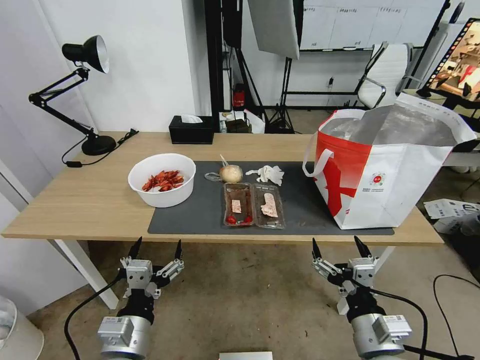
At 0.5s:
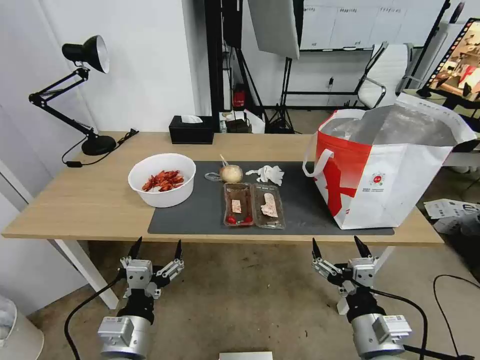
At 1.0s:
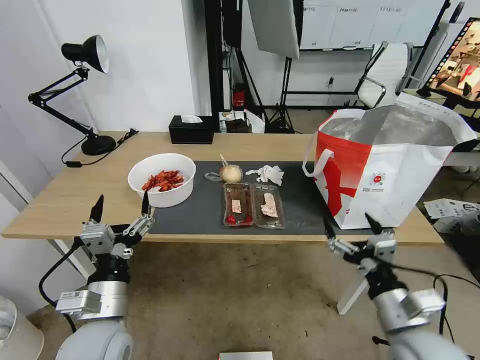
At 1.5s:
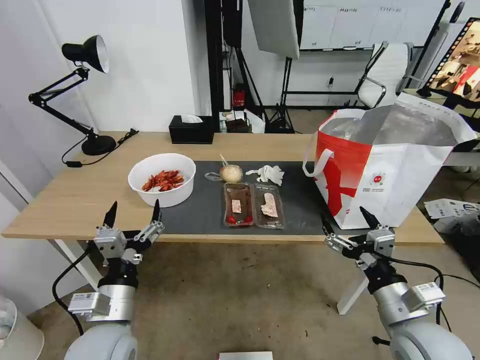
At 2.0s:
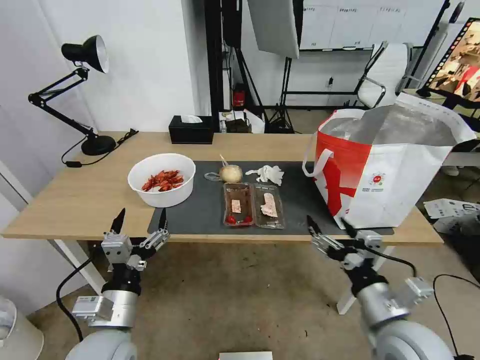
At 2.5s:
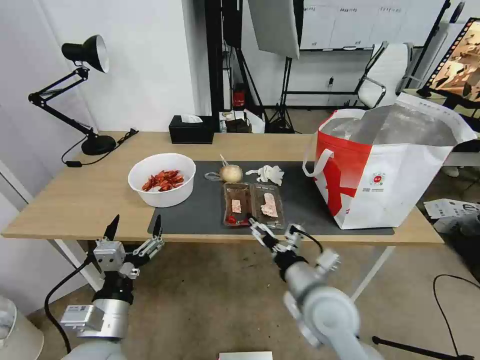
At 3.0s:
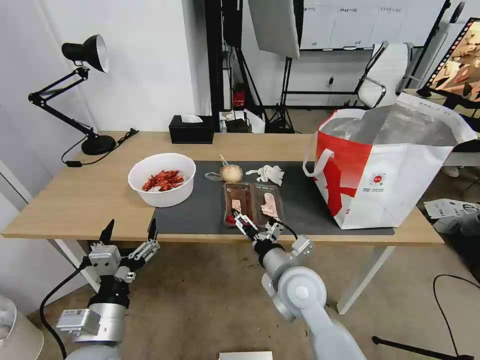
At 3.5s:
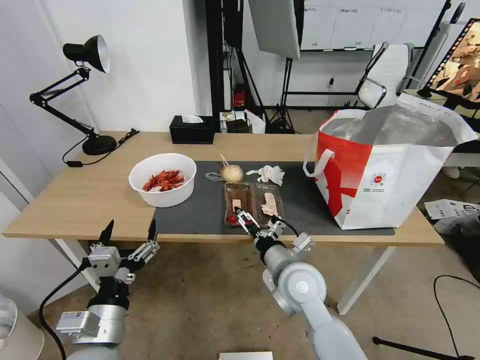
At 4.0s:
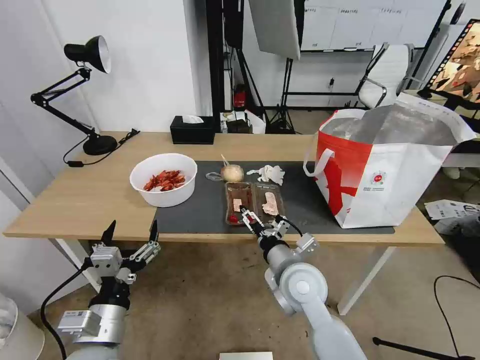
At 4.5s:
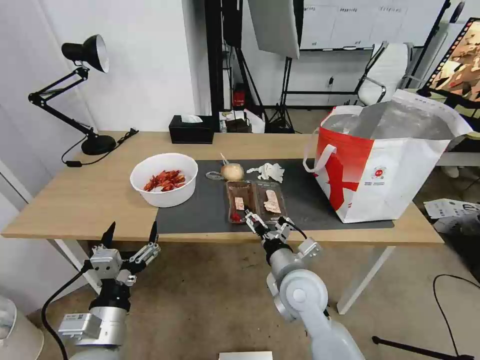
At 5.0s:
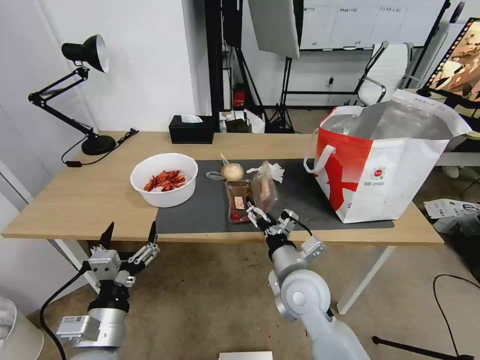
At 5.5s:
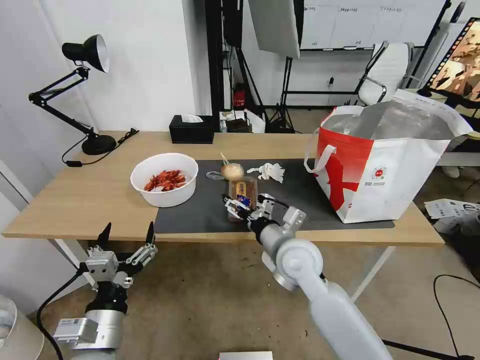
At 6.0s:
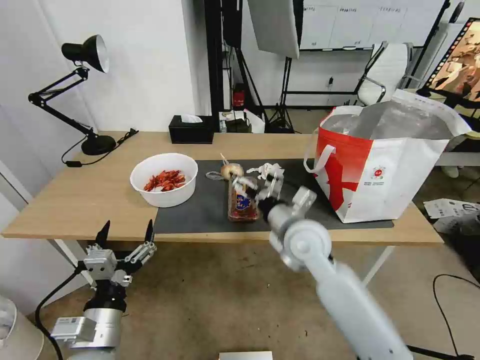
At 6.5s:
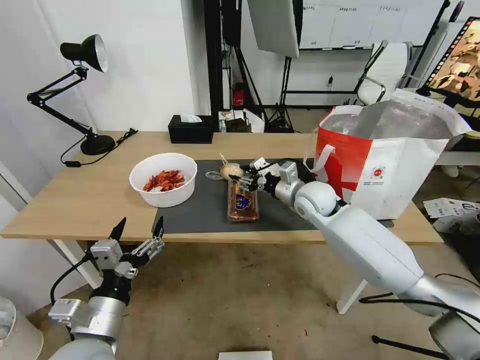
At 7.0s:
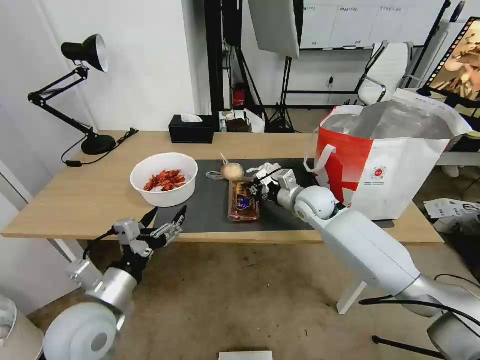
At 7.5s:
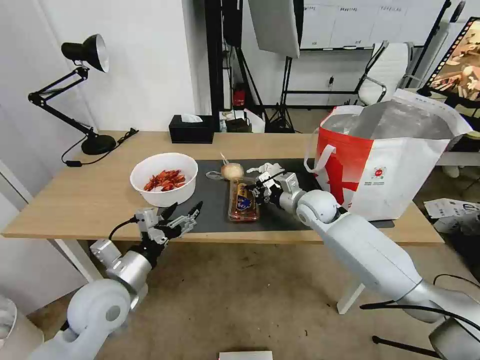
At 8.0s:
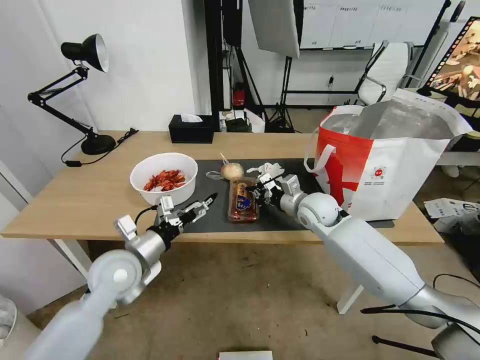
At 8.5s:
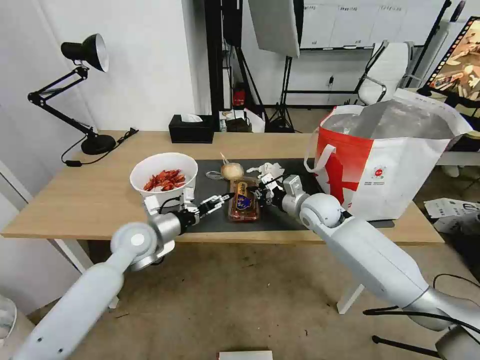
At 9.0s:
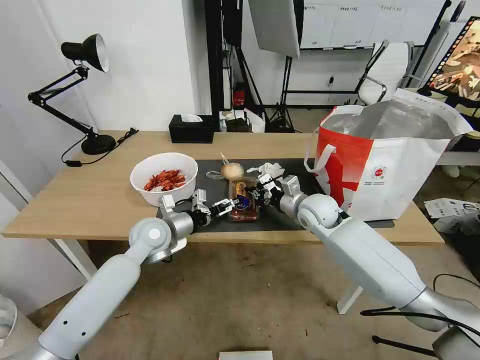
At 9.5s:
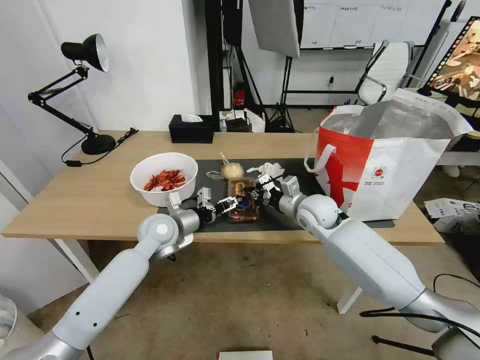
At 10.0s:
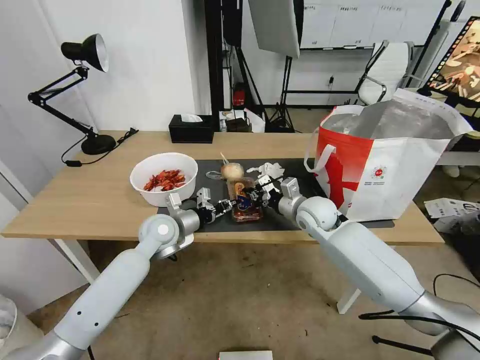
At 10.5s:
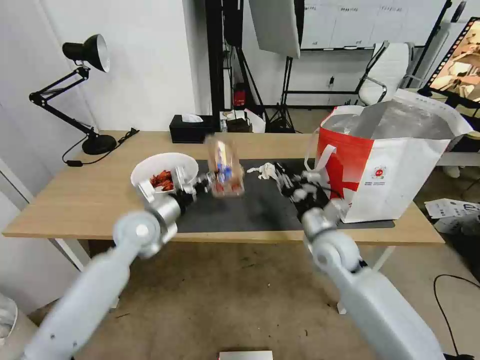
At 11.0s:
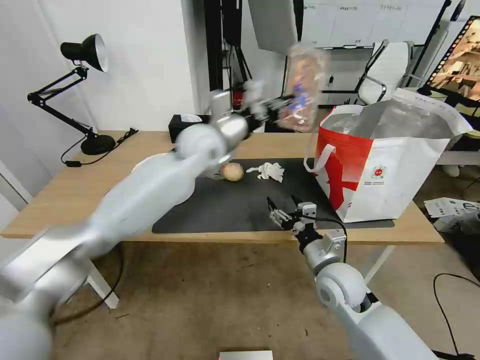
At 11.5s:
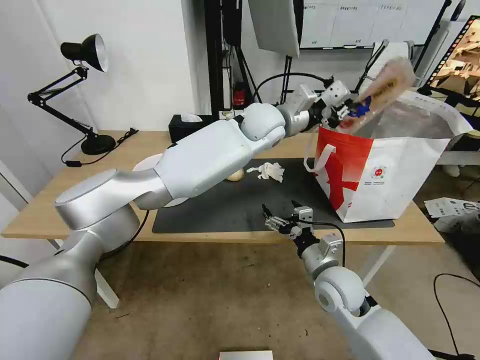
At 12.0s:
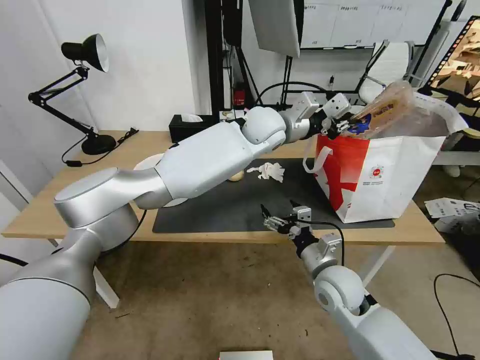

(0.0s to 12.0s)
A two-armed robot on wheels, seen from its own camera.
Task of the whole recording: Pick up the trash from the table and place it into the takeout bag.
2.0s - 4.0s: The right gripper shifts approximately 20 cm to the left and forward.
4.0s - 6.0s: The right gripper is displaced forward and upward by about 10 cm.
6.0s - 8.0s: The left gripper travels forward by about 15 cm. Meanwhile the right gripper is displaced forward and to the right by some 15 cm, and closes.
8.0s - 10.0s: The left gripper goes roughly 10 cm forward and to the right, and closes.
10.0s - 12.0s: The right gripper heads backward, covering approximately 15 cm, and opens up, while the left gripper travels to the right, upward and forward by roughly 35 cm.

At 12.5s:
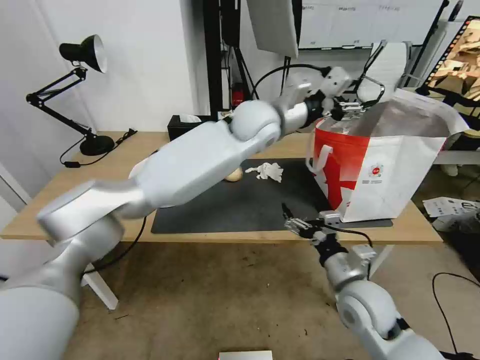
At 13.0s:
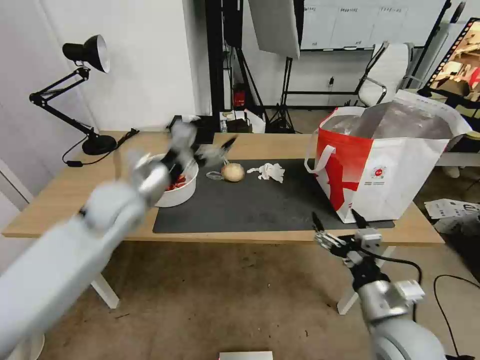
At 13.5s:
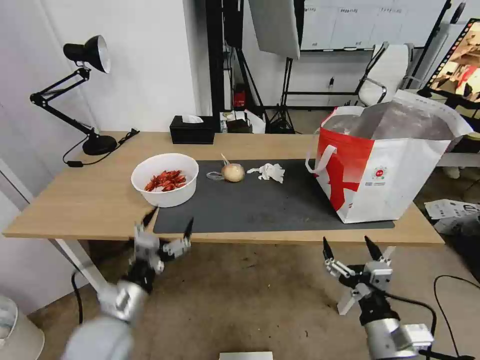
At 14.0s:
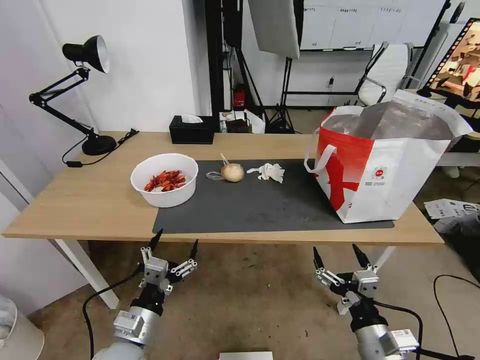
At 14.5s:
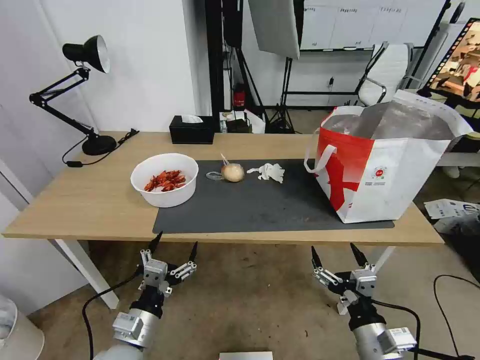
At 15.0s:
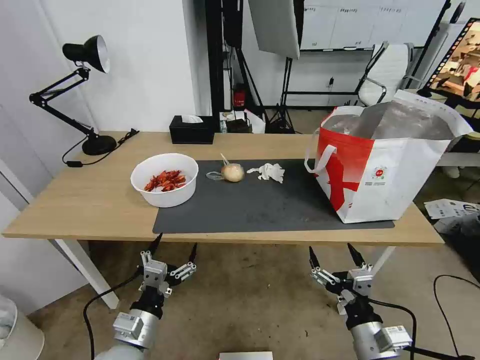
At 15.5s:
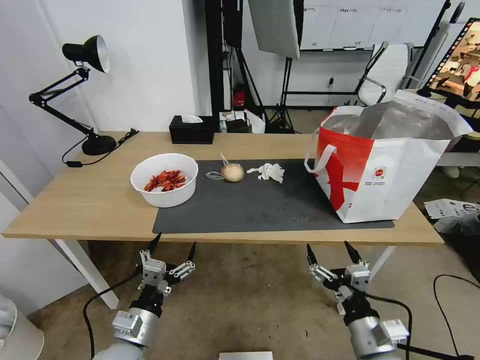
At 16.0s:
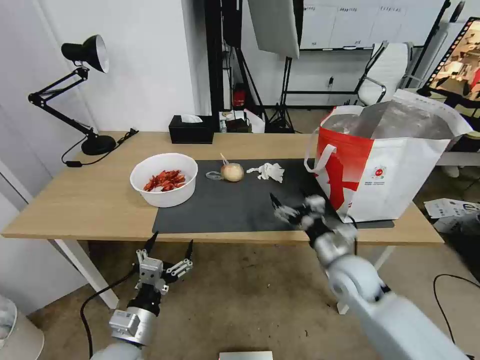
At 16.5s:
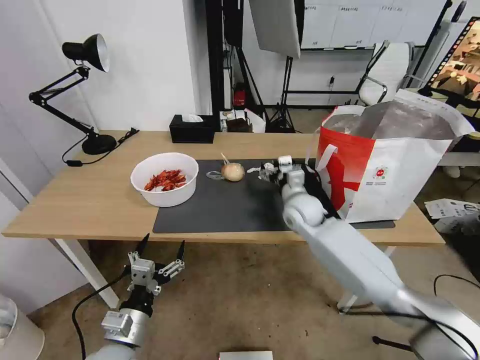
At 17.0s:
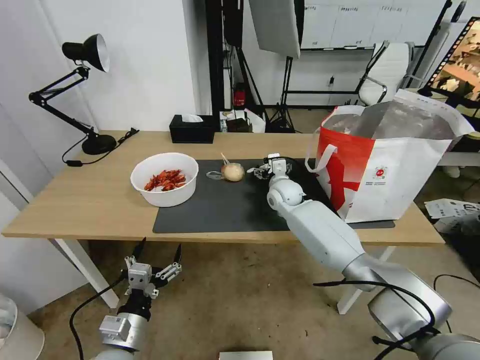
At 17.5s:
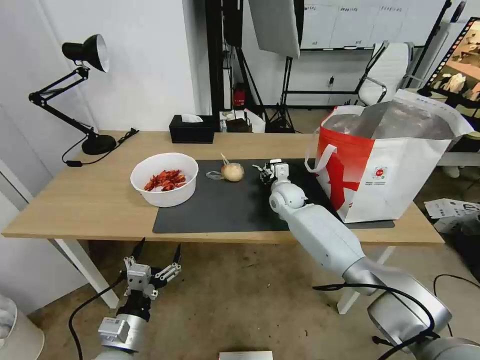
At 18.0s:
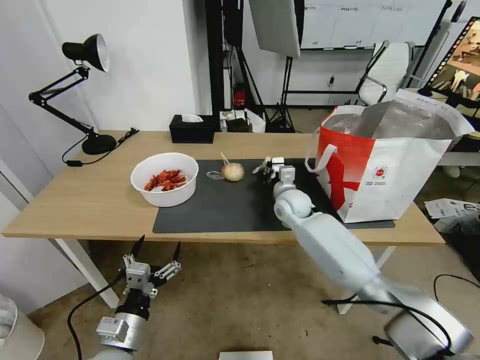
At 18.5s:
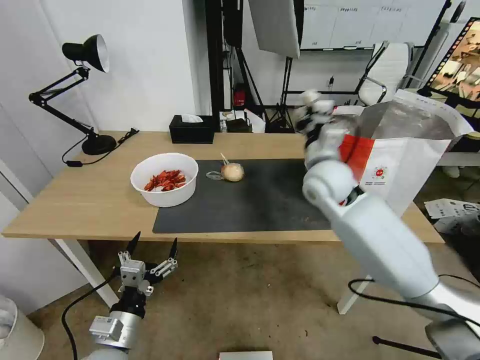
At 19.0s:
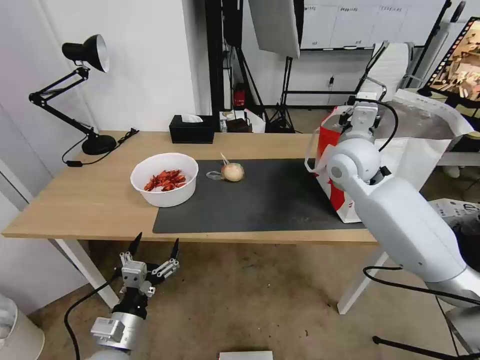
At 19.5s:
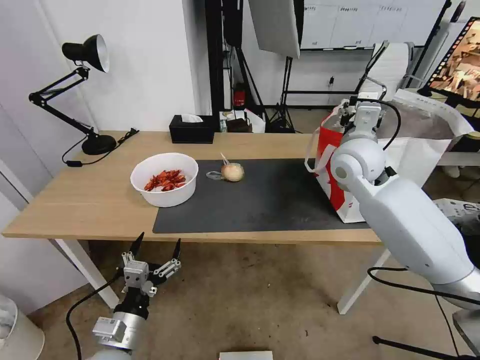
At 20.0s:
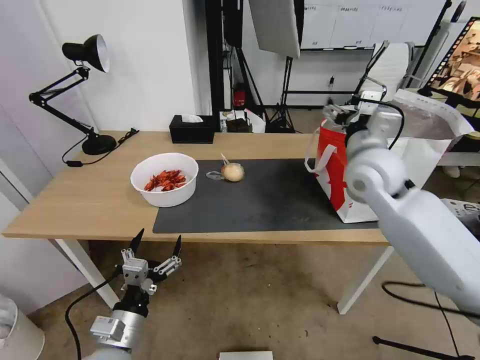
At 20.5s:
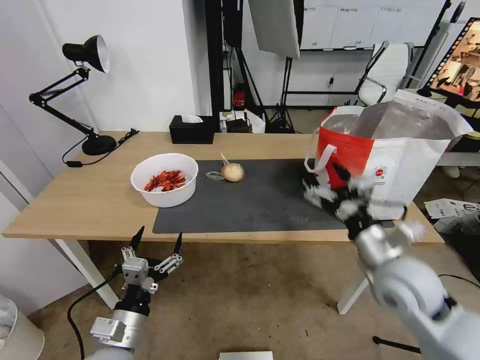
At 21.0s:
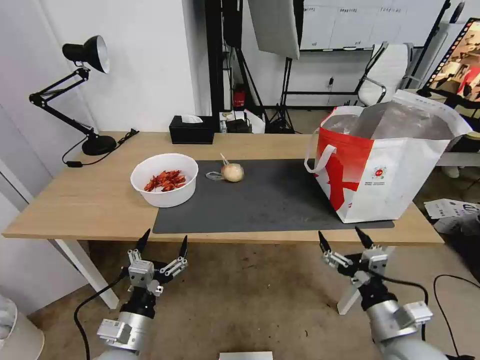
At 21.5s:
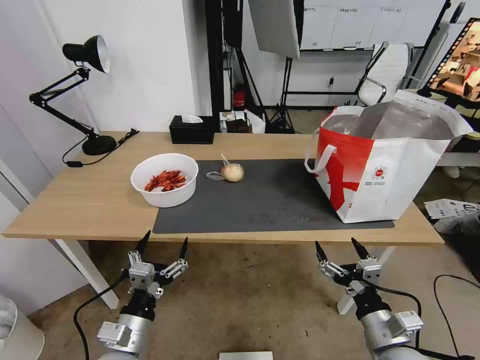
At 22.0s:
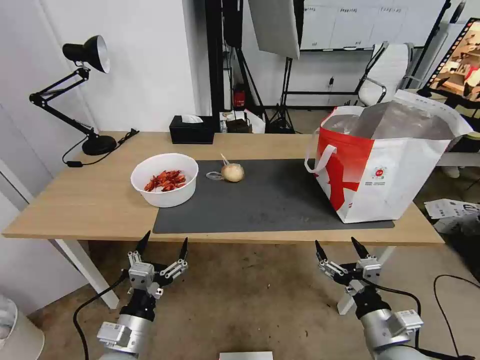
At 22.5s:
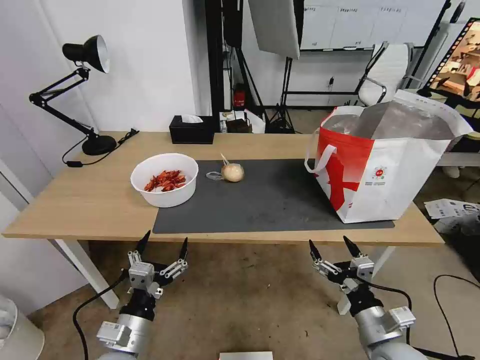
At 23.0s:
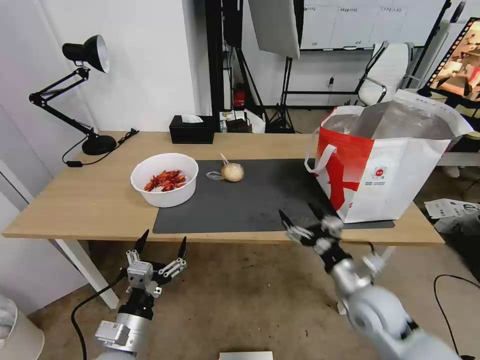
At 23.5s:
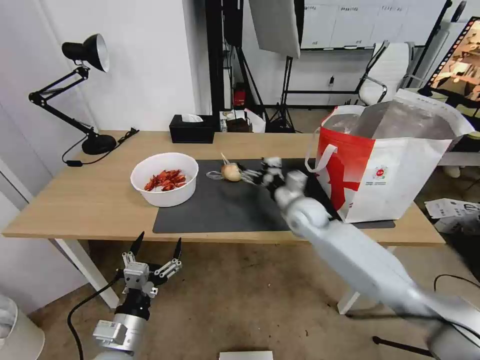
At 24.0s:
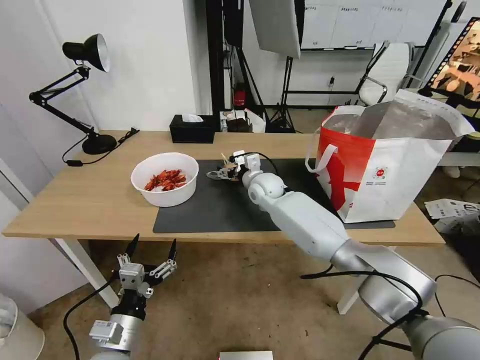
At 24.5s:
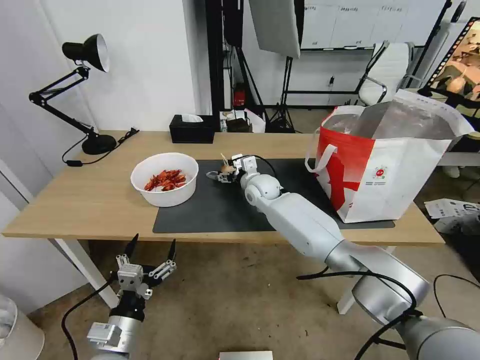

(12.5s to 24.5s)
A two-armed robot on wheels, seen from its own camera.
Task of the whole recording: Pick up the trash from the table and place it into the takeout bag.
12.5s - 14.5s: The left gripper goes some 50 cm backward, downward and to the left, while the right gripper goes about 15 cm backward.
14.5s - 16.5s: The right gripper is displaced forward by roughly 35 cm.
16.5s - 18.5s: The right gripper shifts some 15 cm upward, and closes its fingers.
18.5s - 20.5s: The right gripper heads backward, to the right and downward, covering roughly 20 cm, and opens.
20.5s - 22.5s: The right gripper is displaced downward and backward by some 20 cm.
22.5s - 24.5s: The right gripper travels forward and to the left by some 50 cm.

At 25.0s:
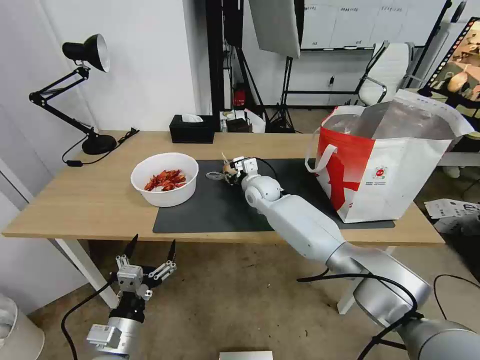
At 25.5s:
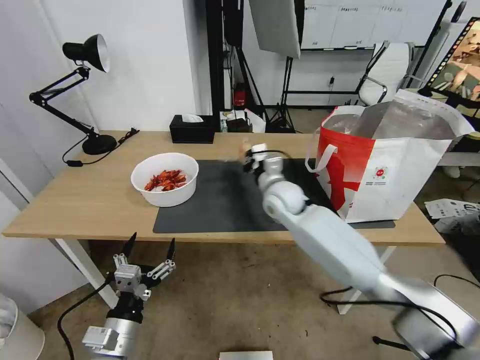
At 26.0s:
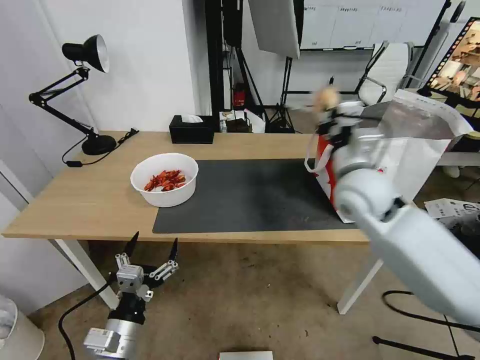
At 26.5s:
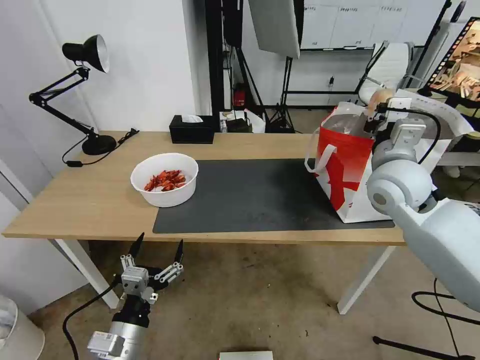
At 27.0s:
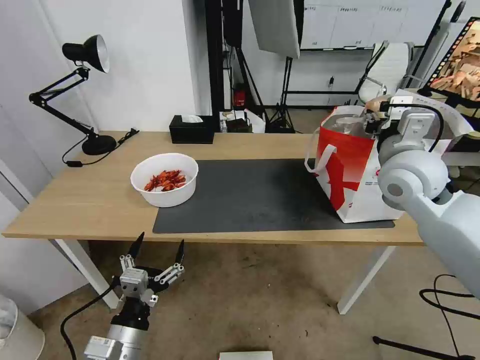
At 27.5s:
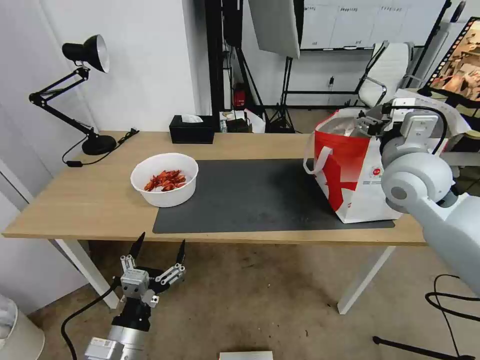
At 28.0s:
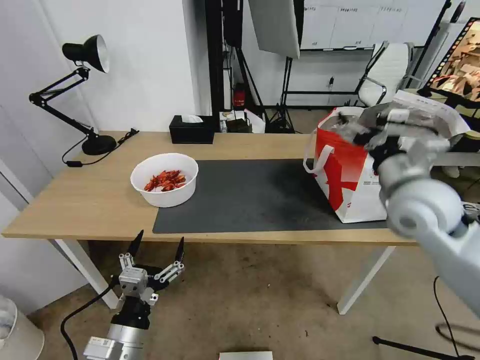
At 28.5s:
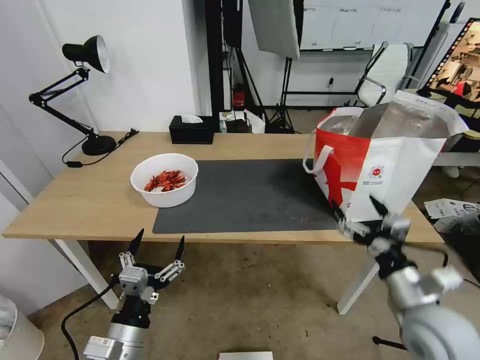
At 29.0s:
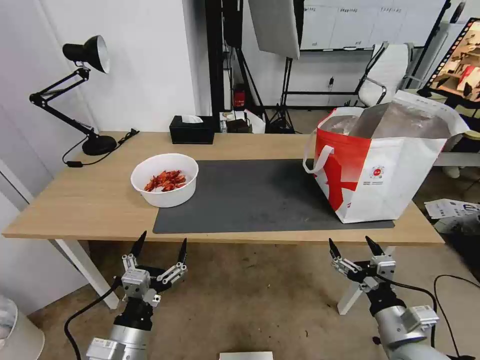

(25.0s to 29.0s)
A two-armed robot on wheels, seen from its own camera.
Task of the whole recording: Pick up the trash from the table and place it into the takeout bag.
25.0s - 27.0s: The right gripper goes some 35 cm to the right, upward and backward, and closes, then reopens.
27.0s - 29.0s: The right gripper is displaced backward and downward by roughly 35 cm, and opens its fingers.
